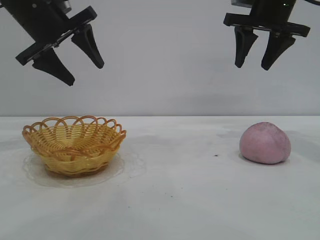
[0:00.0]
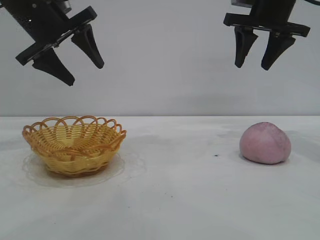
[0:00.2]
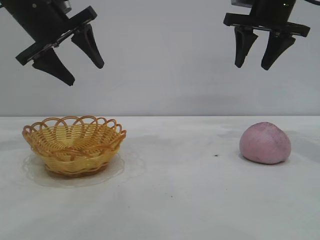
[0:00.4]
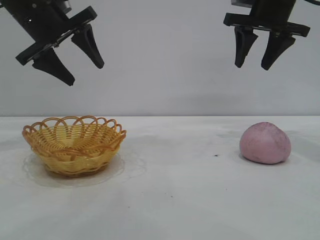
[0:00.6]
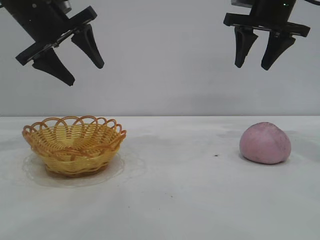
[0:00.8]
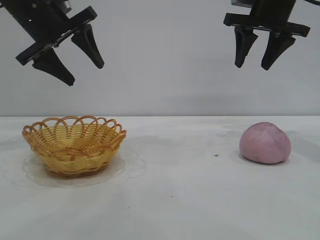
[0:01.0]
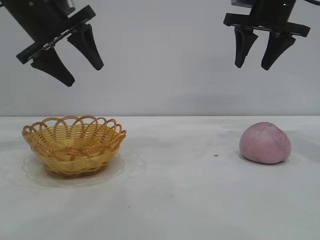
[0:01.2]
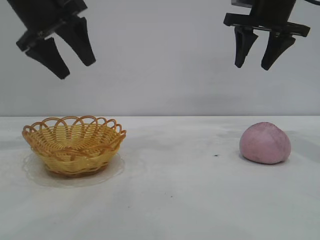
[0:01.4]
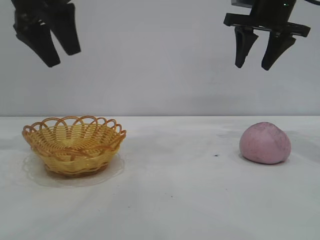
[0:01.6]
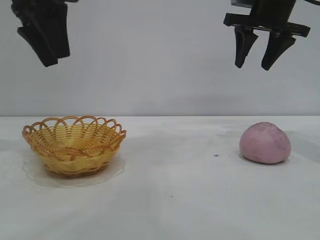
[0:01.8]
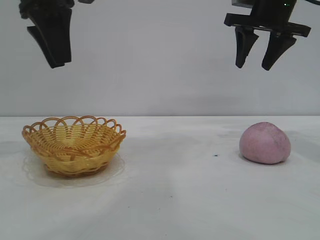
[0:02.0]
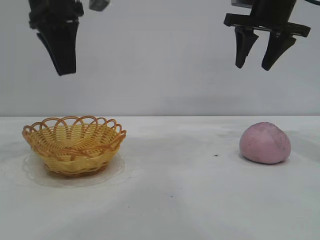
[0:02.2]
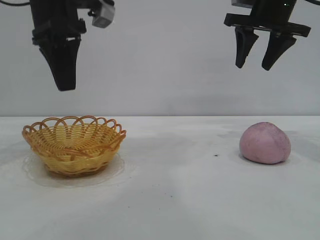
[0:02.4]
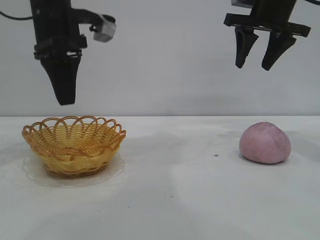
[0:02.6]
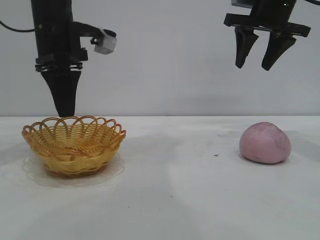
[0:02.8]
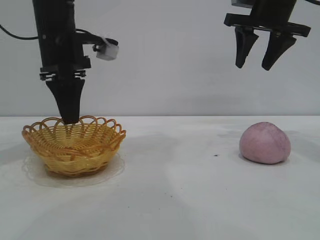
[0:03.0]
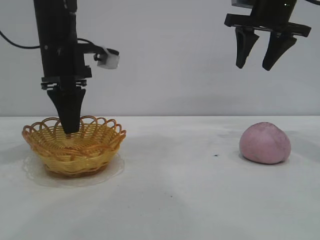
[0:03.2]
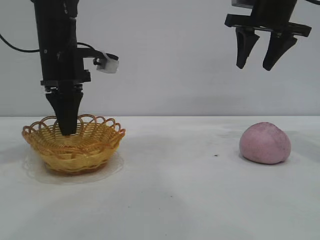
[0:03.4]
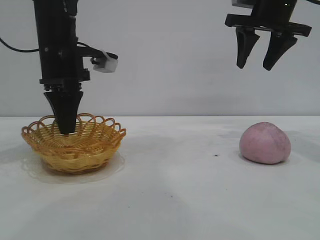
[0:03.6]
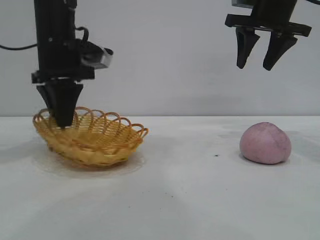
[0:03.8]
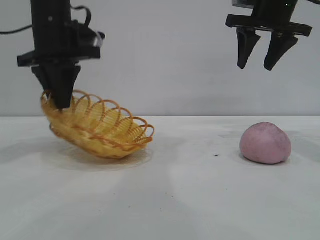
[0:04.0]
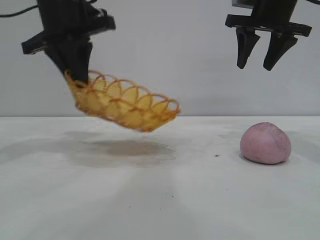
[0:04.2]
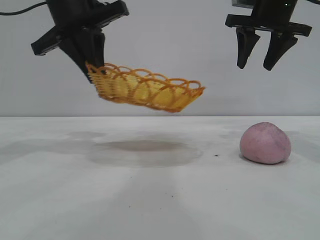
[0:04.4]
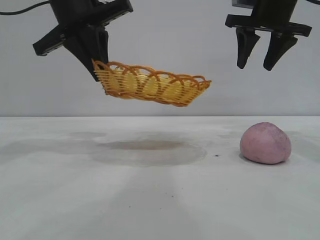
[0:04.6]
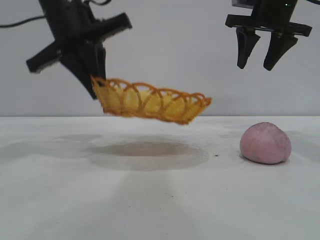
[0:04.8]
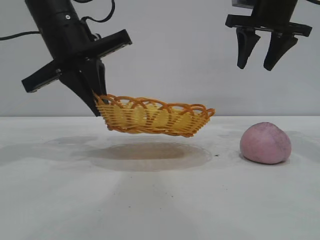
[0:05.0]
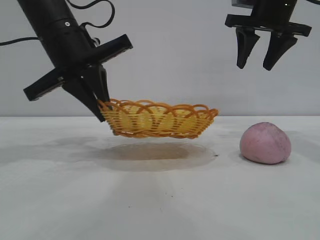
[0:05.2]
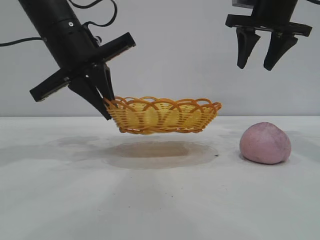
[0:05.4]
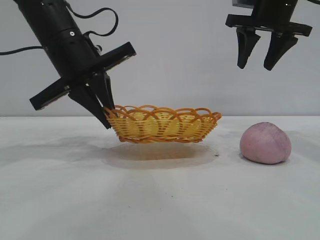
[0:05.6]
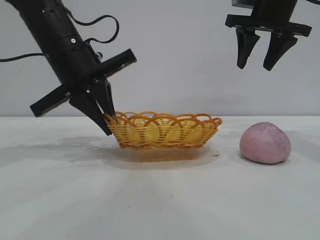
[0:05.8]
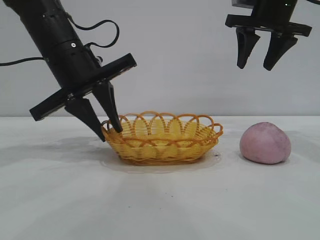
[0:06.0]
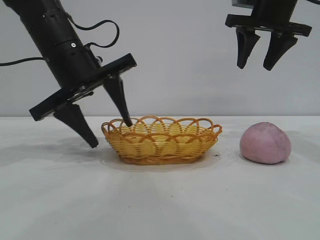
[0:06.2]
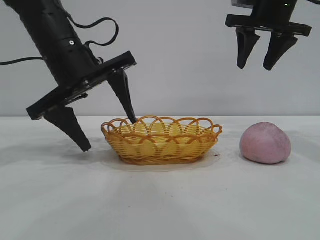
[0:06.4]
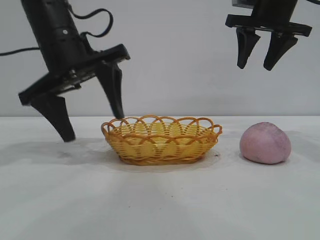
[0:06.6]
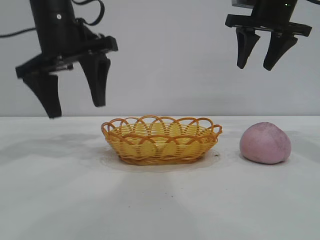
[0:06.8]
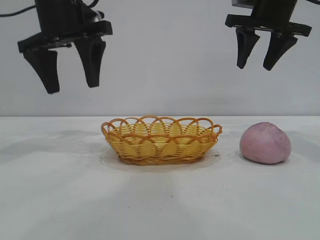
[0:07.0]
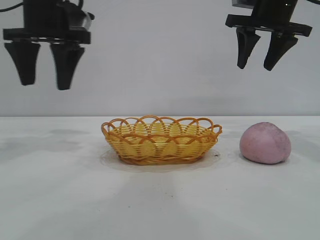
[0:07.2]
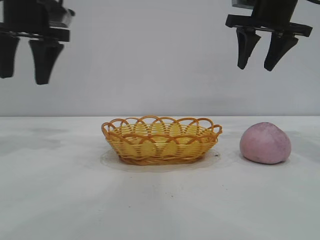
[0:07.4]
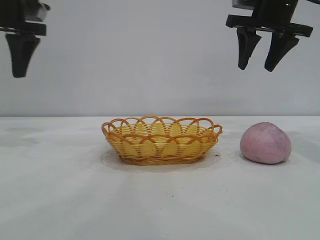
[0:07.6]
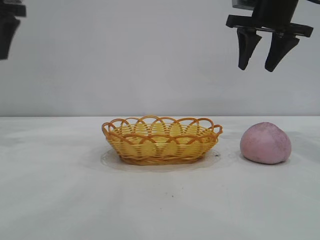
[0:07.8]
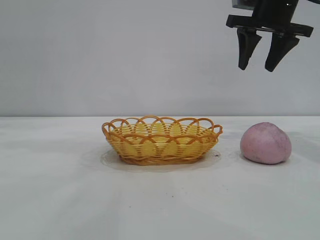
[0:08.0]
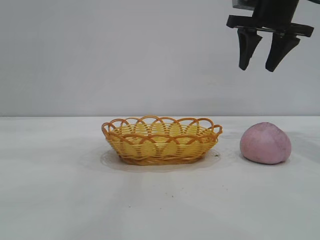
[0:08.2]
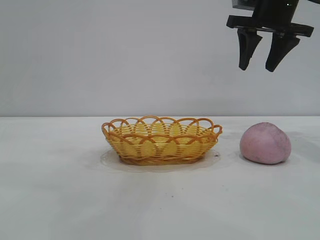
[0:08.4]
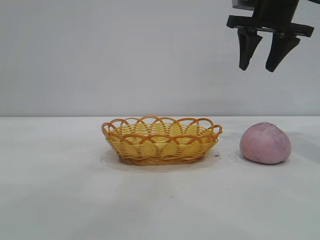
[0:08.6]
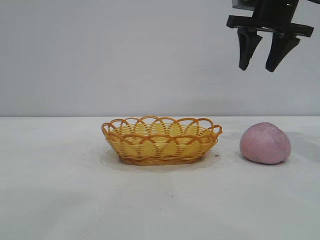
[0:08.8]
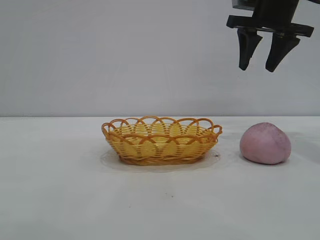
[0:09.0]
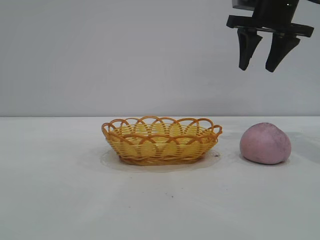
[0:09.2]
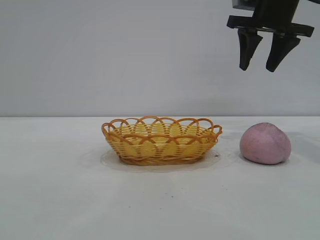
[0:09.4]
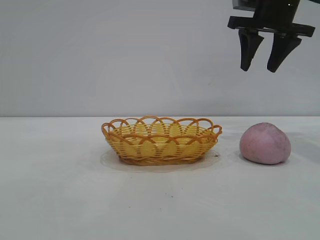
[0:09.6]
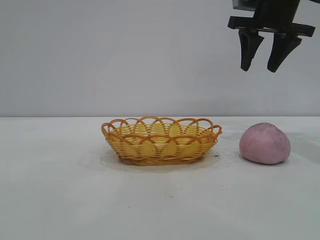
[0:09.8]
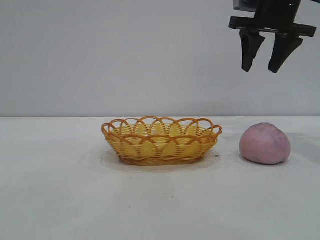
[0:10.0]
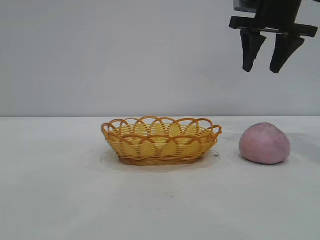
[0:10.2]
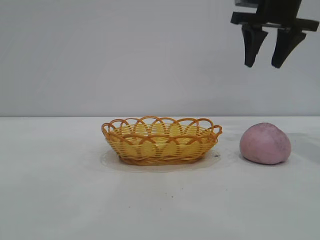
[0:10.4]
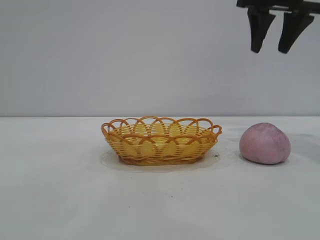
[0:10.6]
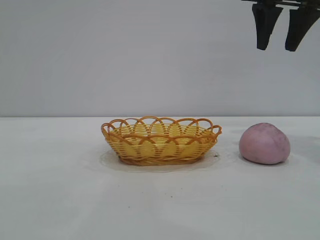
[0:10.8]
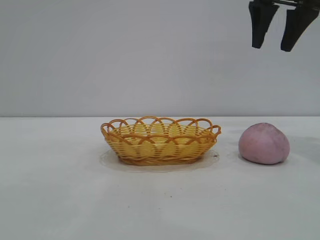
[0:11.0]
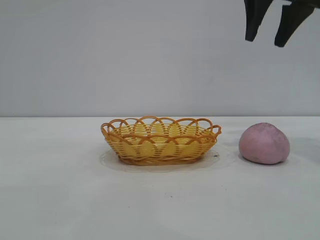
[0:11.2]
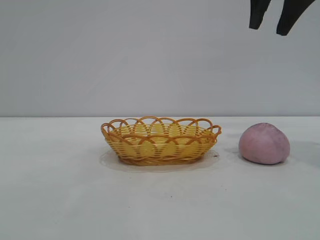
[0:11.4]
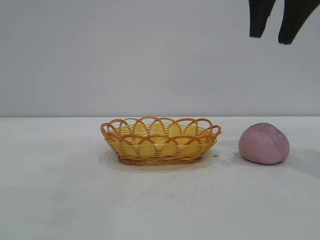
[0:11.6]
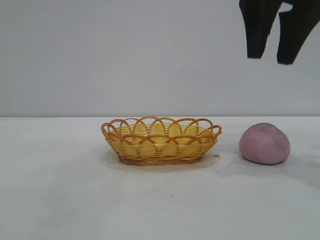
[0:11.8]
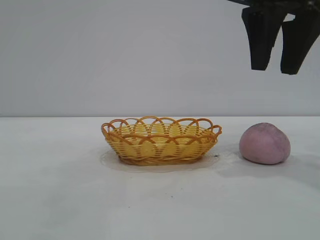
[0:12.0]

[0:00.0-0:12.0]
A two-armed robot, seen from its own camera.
Task of the whole recording: pick up the peach and put it into the basket.
Step, 0:00.0 to 0:06.6: Move the basket to the center of view.

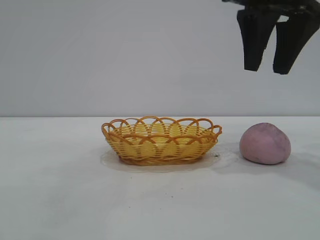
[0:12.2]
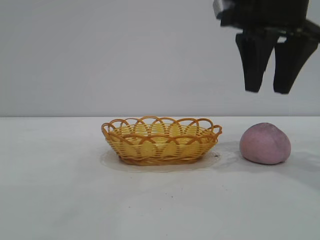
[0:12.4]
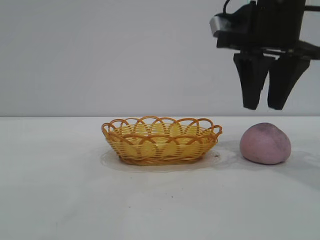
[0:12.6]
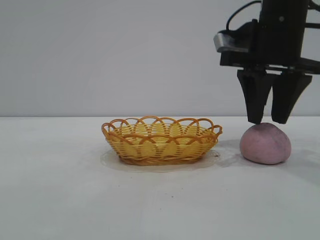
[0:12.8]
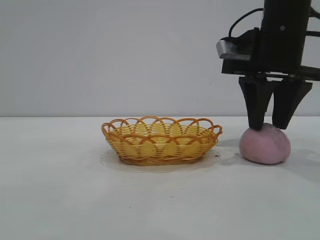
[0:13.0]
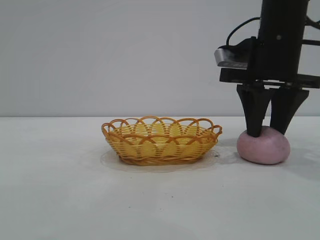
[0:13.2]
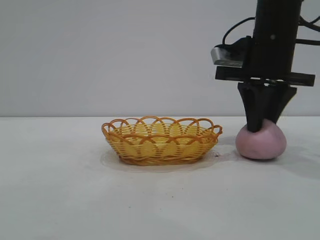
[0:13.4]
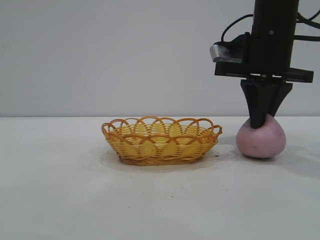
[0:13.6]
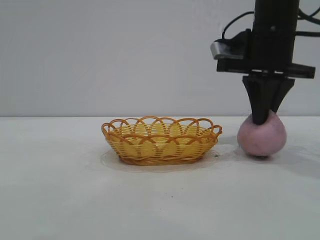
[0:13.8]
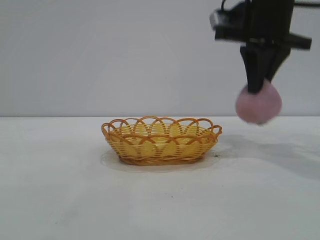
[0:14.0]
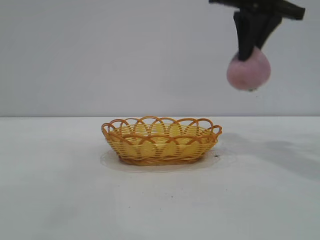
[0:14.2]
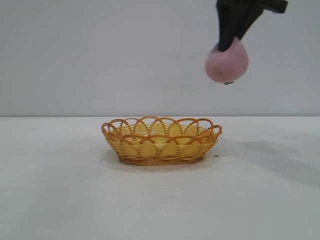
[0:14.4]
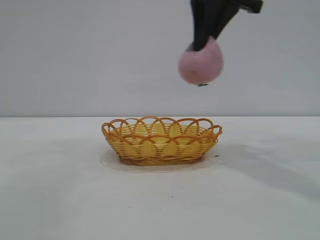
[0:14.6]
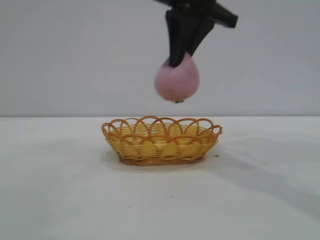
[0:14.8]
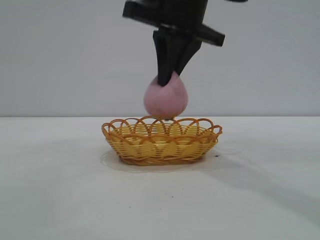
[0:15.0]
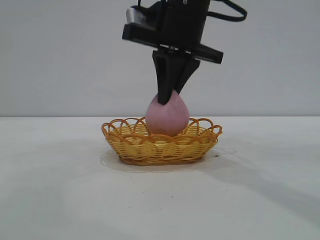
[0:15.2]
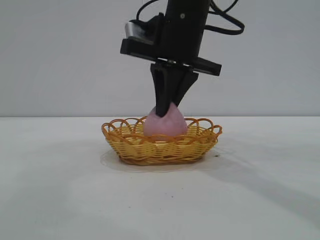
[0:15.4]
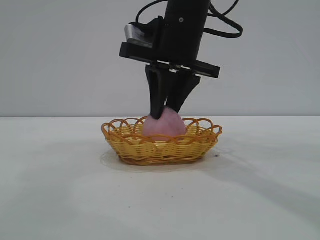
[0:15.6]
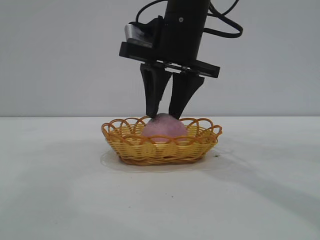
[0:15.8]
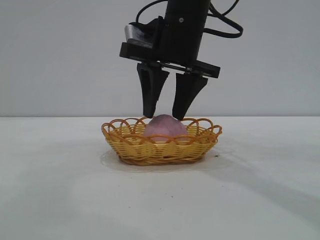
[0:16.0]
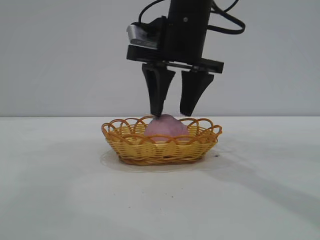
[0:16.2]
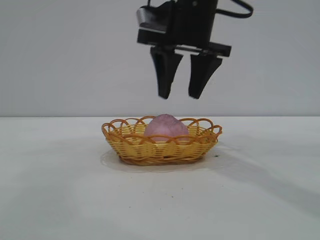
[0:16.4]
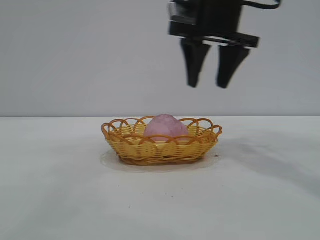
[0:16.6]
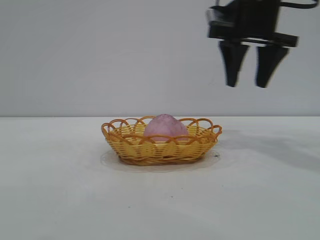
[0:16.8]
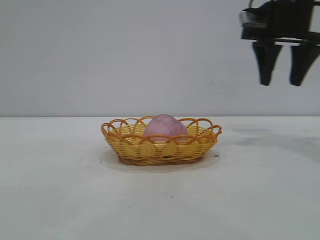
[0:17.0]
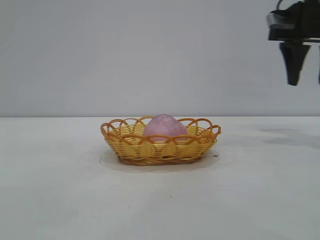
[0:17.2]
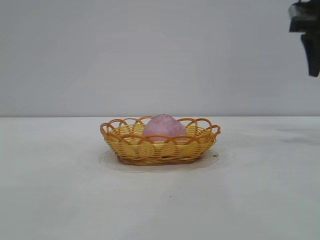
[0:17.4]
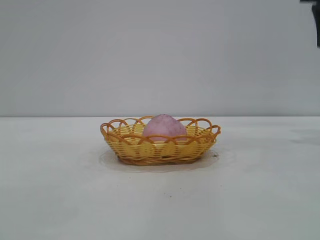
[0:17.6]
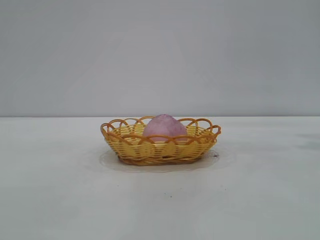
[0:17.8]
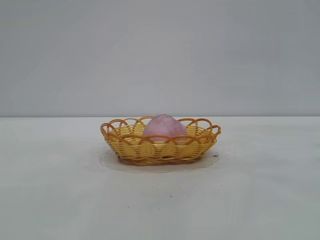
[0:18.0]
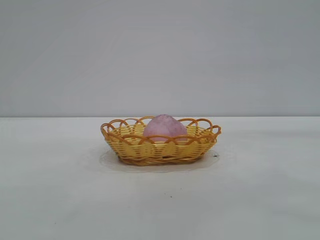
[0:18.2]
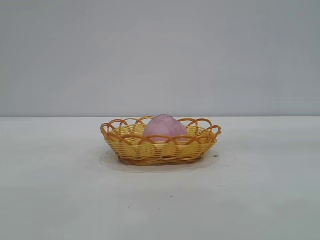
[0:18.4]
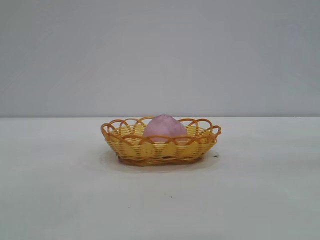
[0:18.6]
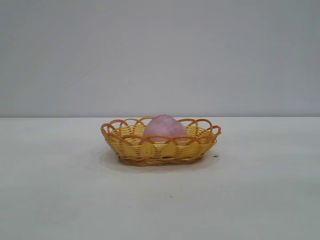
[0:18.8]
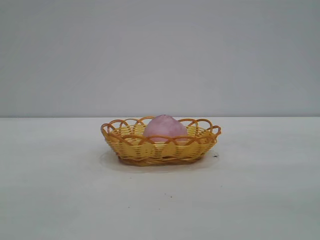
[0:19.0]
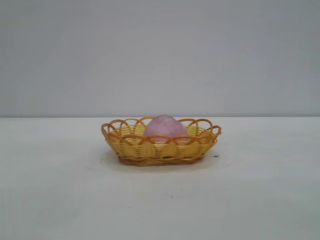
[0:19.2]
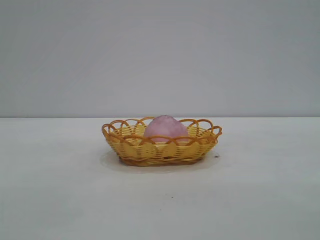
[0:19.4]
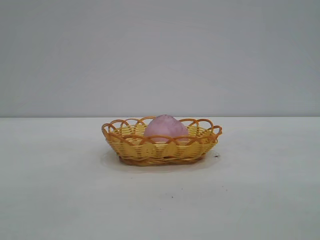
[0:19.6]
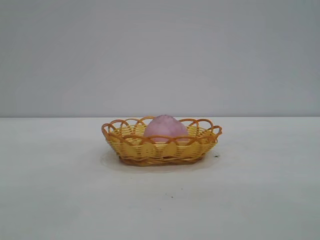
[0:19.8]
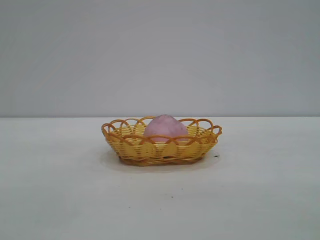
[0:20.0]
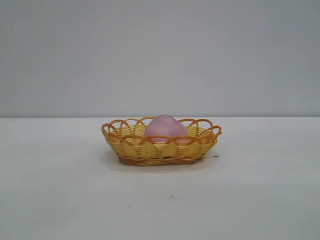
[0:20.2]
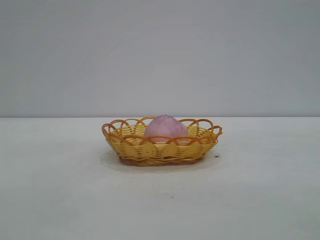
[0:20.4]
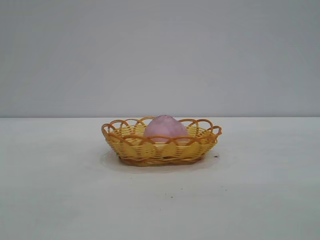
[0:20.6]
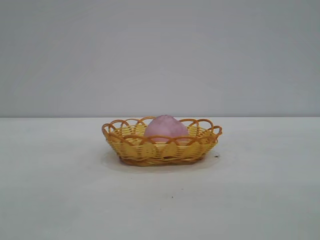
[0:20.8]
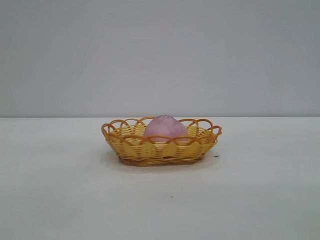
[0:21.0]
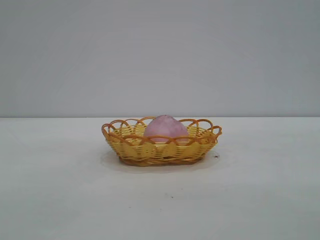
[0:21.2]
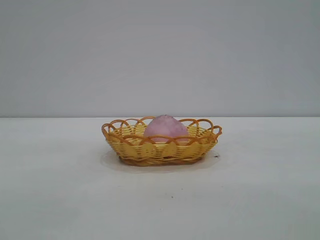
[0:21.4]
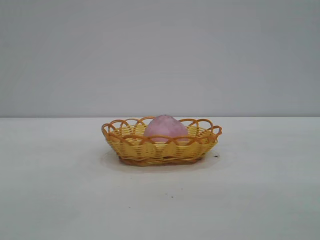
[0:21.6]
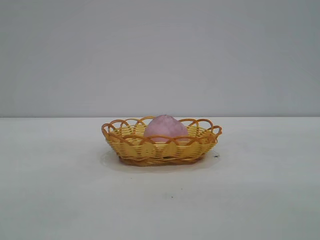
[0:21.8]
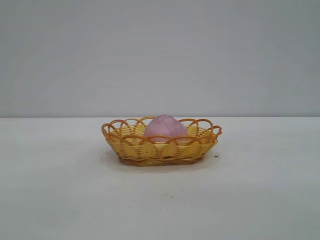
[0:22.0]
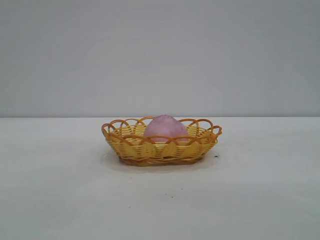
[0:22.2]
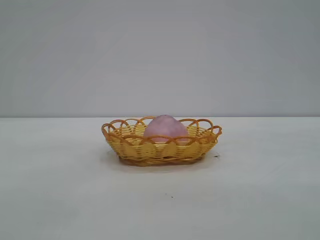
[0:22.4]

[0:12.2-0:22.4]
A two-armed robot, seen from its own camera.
Task of the whole recording: pick up the peach and put it into the basket.
Step, 0:14.2 to 0:16.4: place the peach into the basket.
